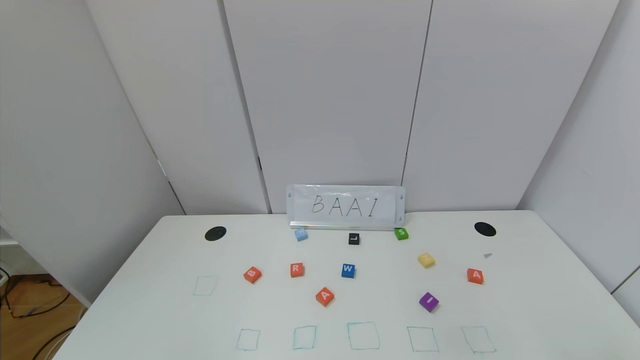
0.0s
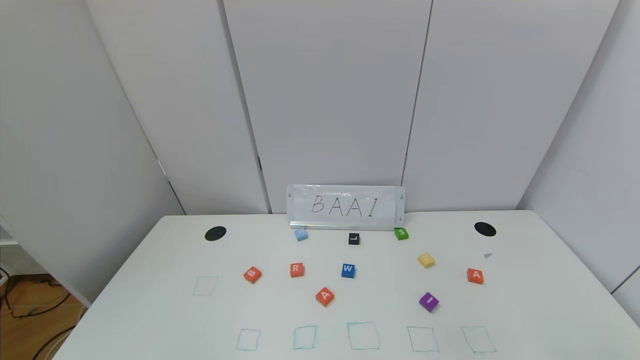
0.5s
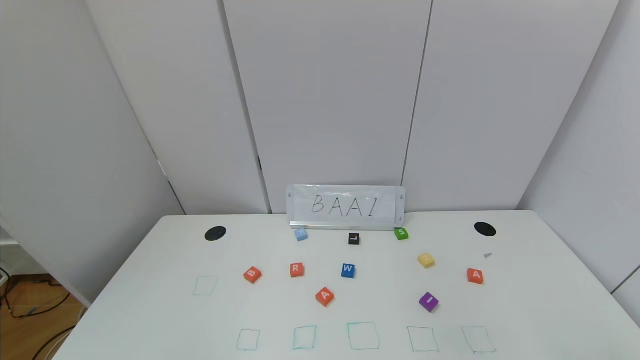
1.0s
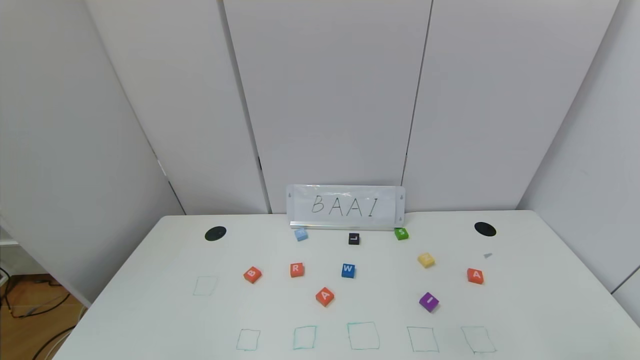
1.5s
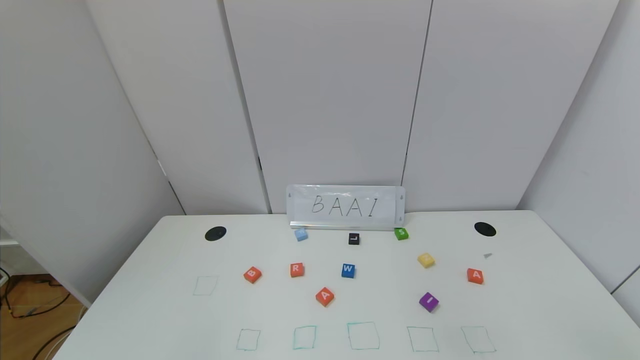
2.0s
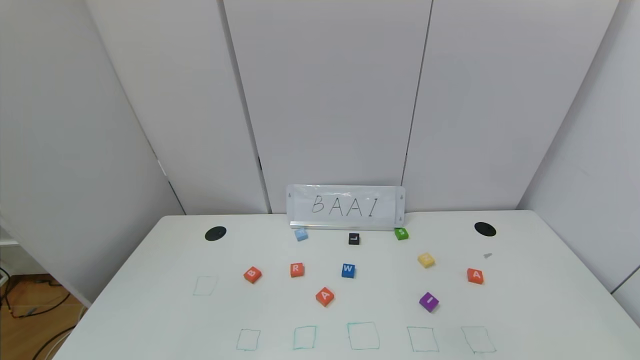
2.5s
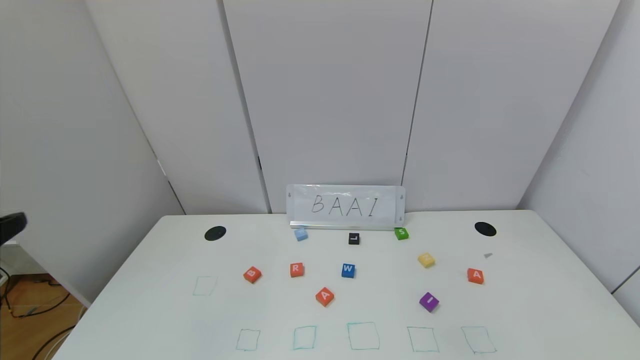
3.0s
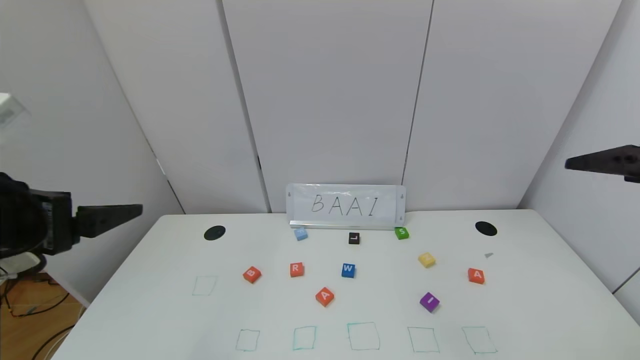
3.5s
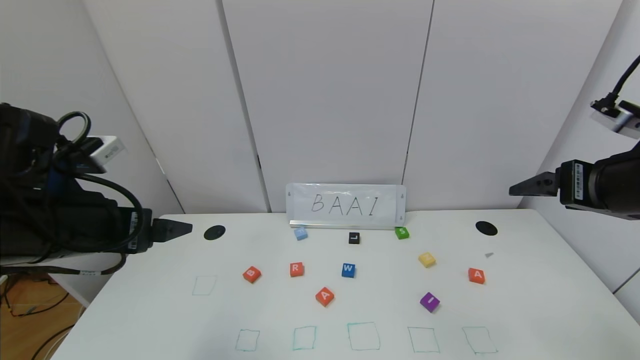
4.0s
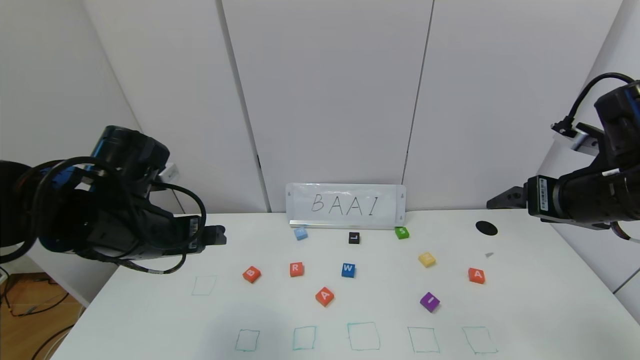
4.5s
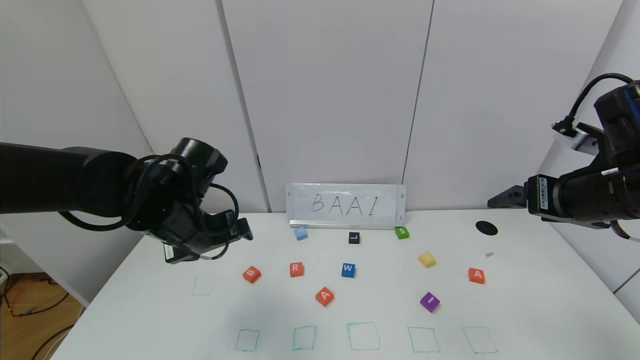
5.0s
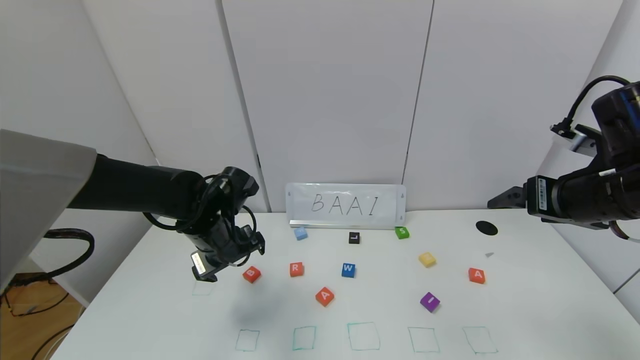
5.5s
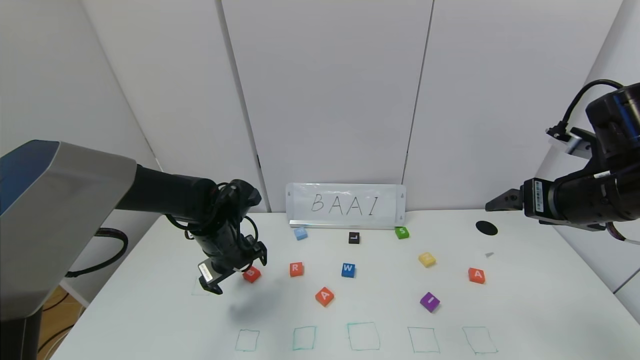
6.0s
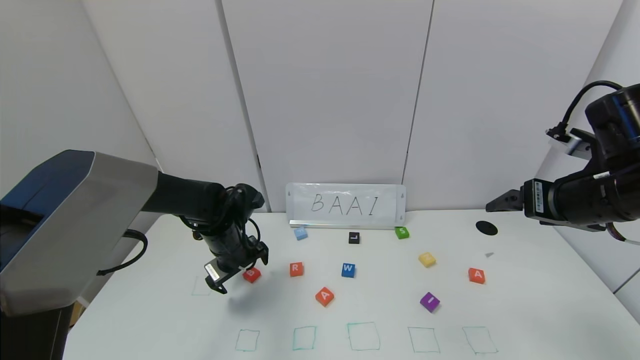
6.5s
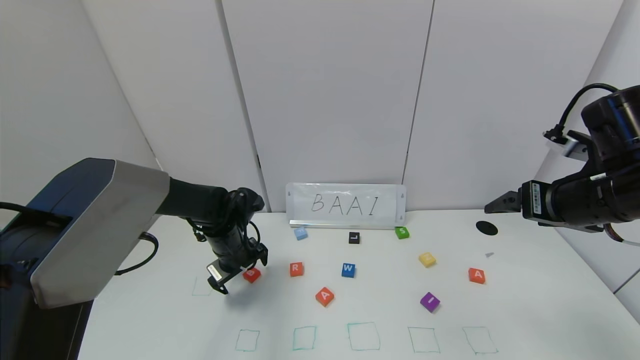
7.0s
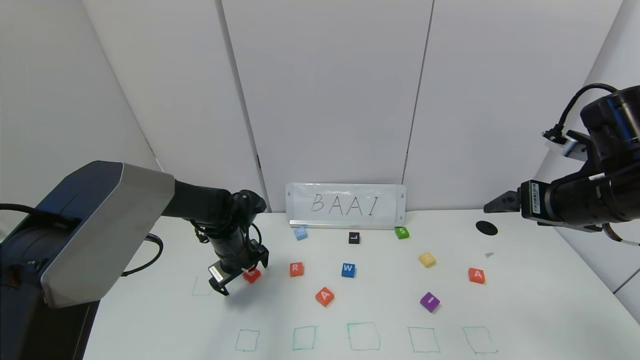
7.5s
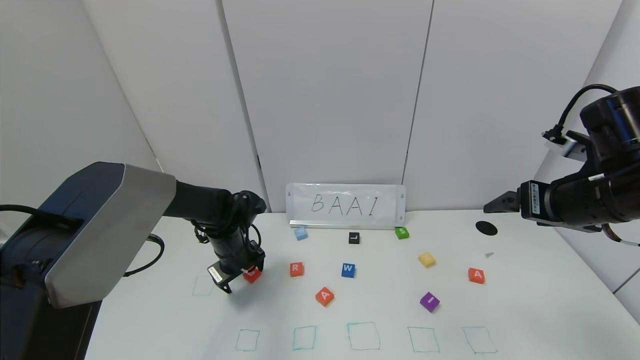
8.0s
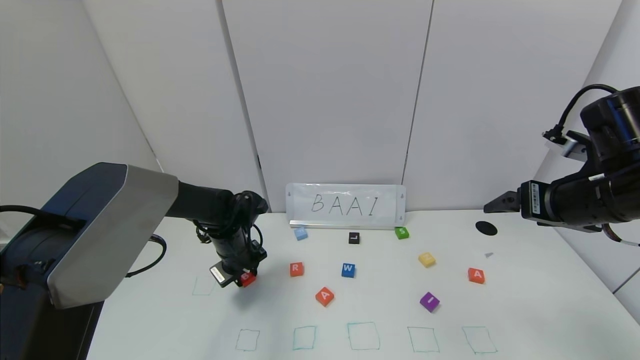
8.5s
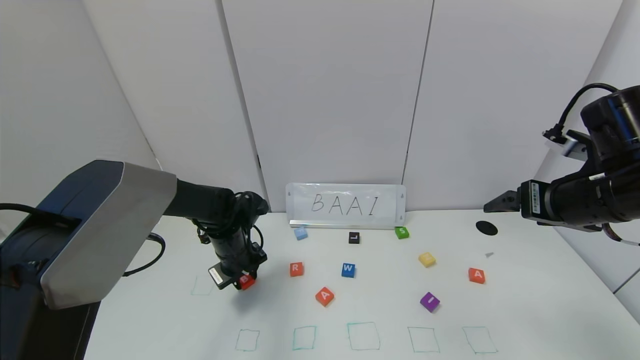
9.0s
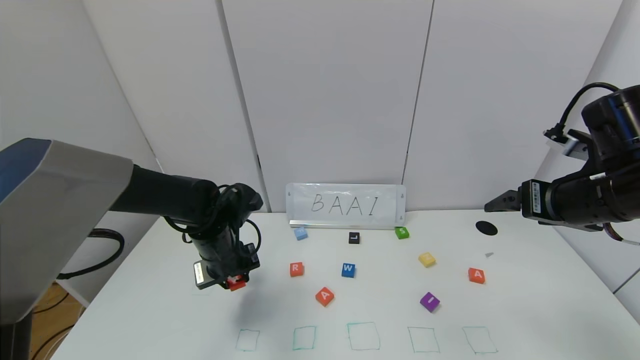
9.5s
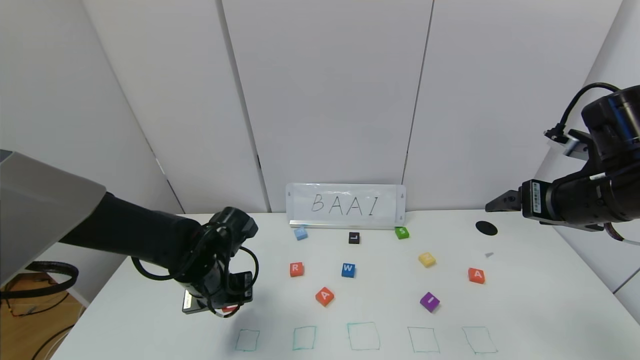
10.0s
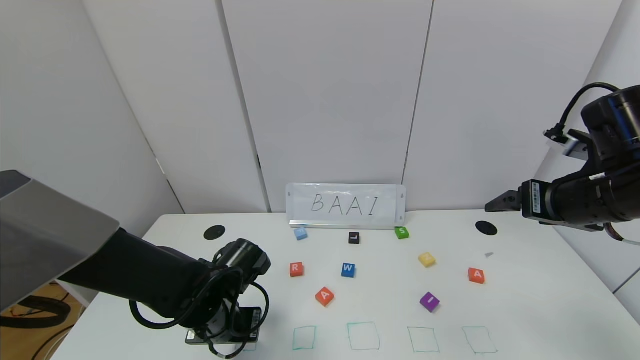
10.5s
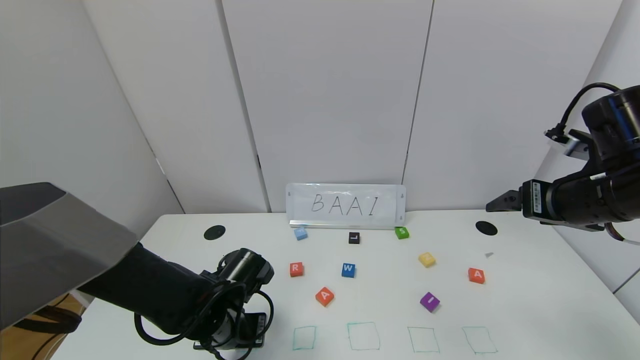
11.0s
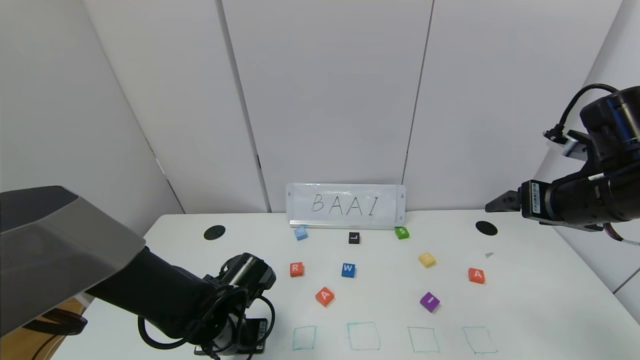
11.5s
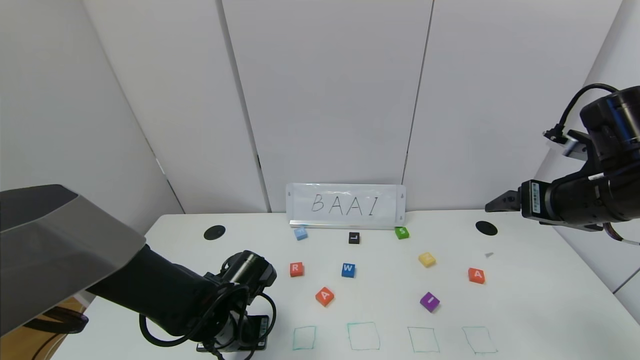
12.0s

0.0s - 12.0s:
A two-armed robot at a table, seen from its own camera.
Task of the whole recording: use the gripper to find blocks with the letters b, a, a, and i on the table and arrange them into BAAI, then find r and N and turn the arranged baai into brian.
2.0s - 4.0s: The left gripper travels forward by about 25 cm; the right gripper moves forward and upward, about 30 cm.
4.0s - 6.0s: The left gripper is displaced forward, downward and to the right by roughly 20 cm.
6.0s - 8.0s: The left gripper changes place by approximately 5 cm.
8.0s - 10.0s: The left gripper moves backward, about 10 cm, and closes up.
10.0s - 12.0s: The left gripper ends up some 5 cm from where it was.

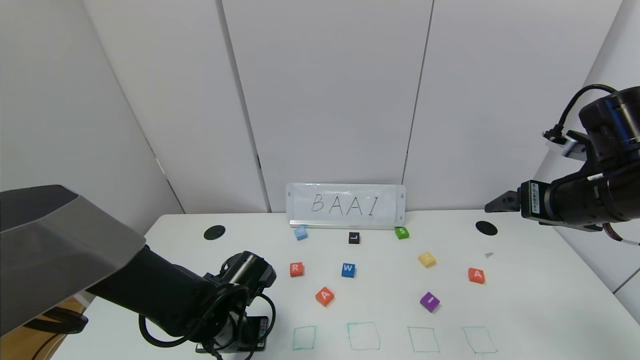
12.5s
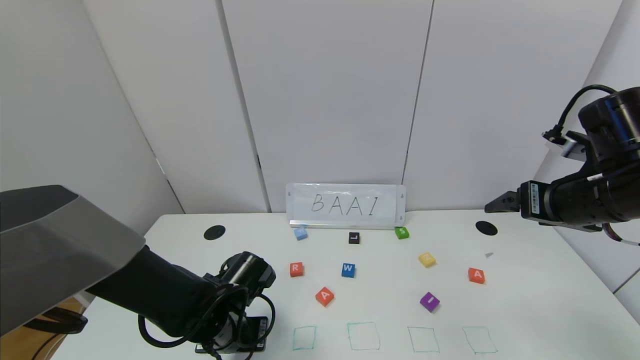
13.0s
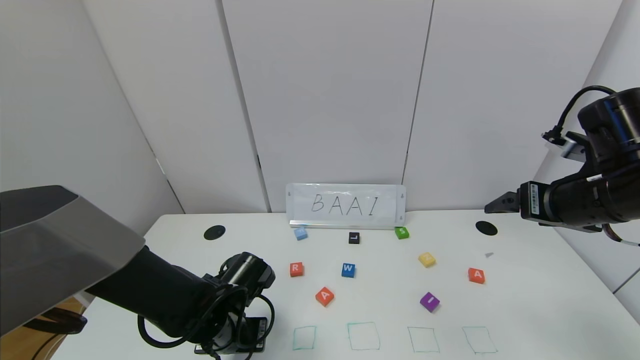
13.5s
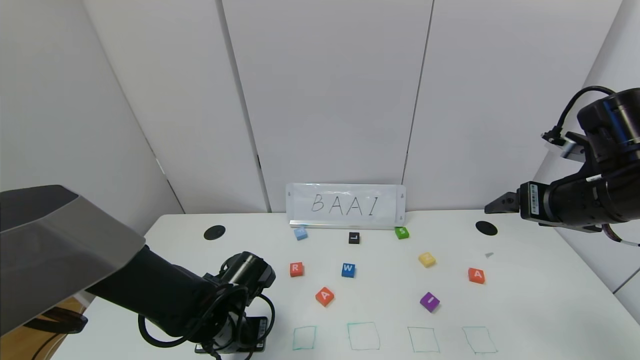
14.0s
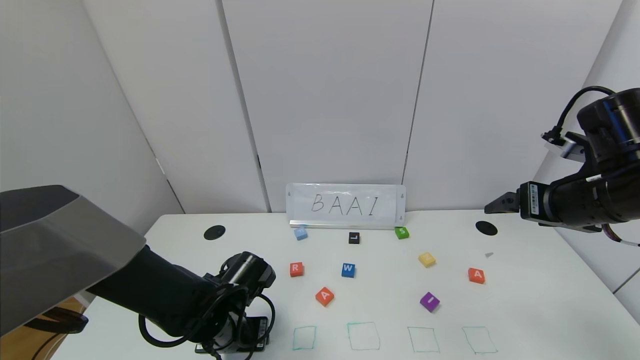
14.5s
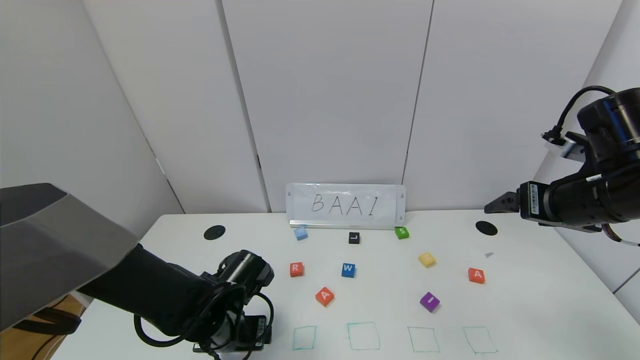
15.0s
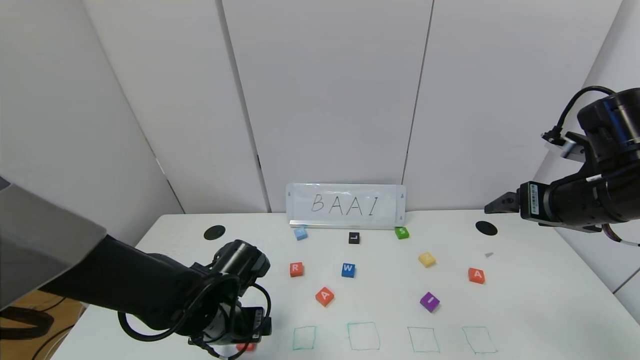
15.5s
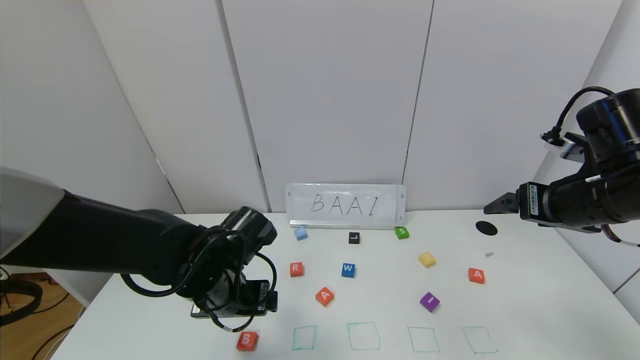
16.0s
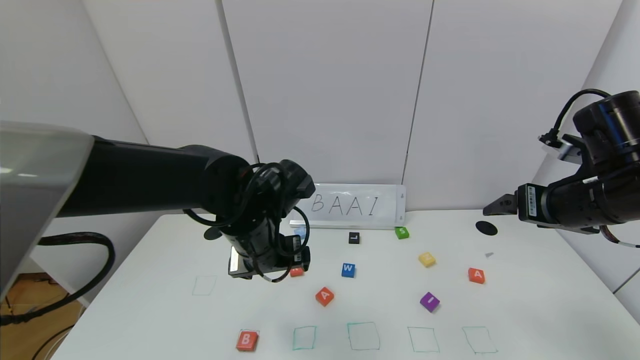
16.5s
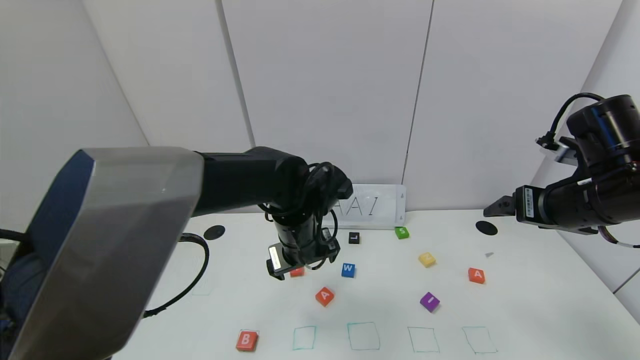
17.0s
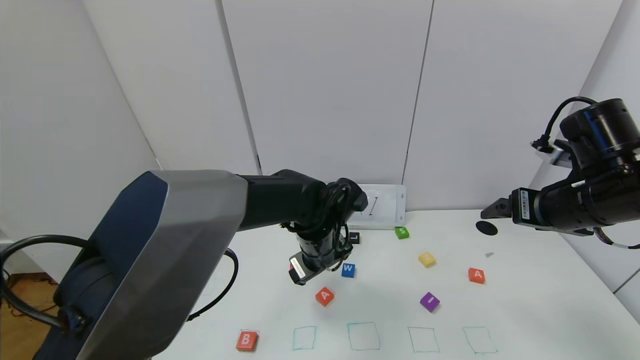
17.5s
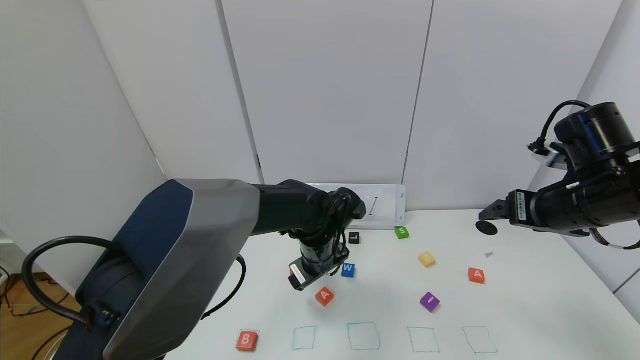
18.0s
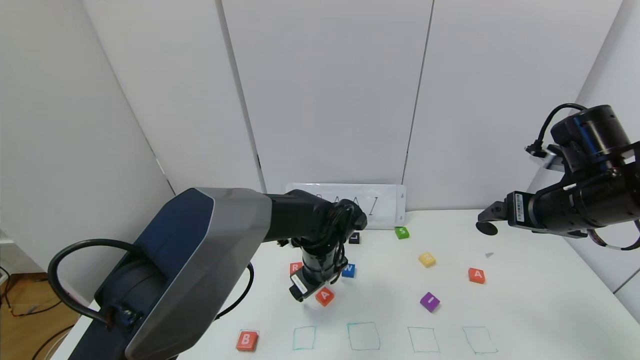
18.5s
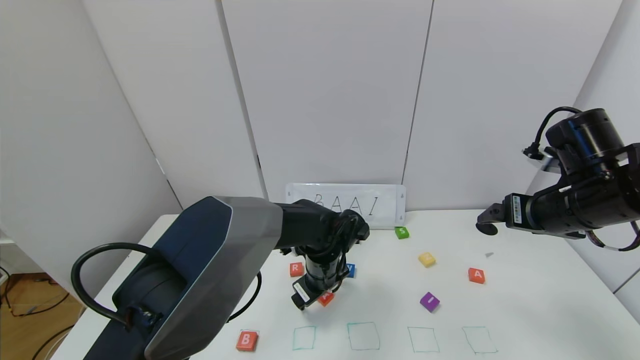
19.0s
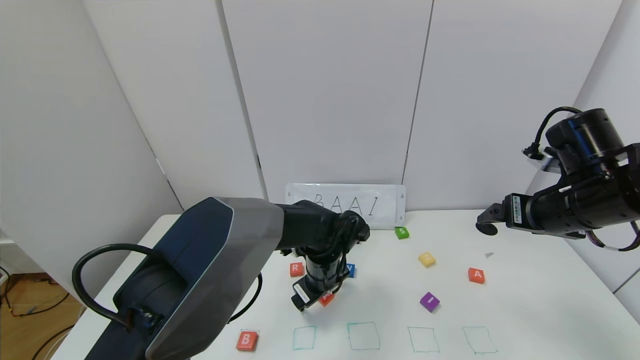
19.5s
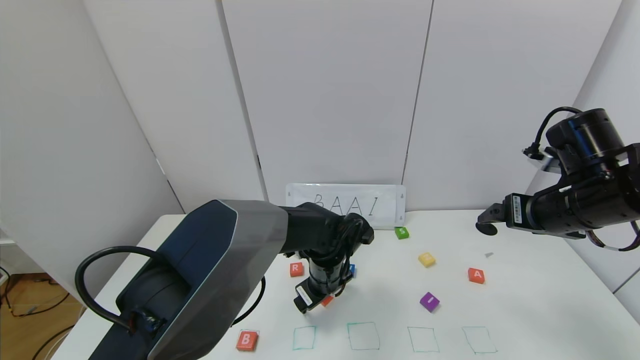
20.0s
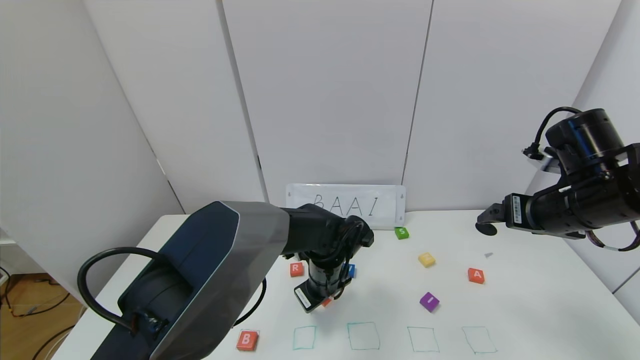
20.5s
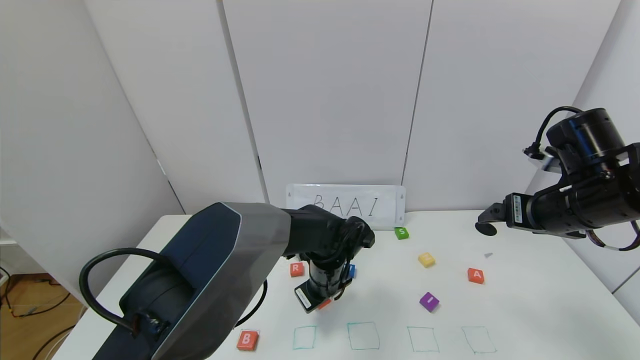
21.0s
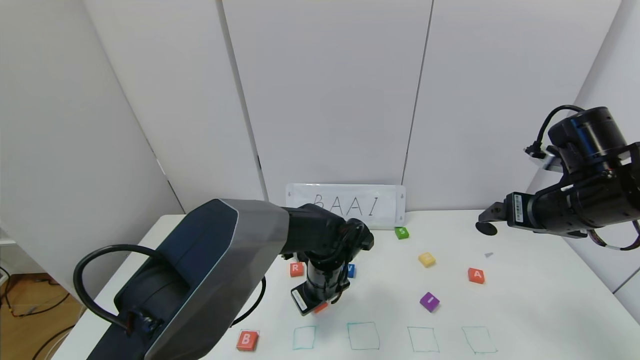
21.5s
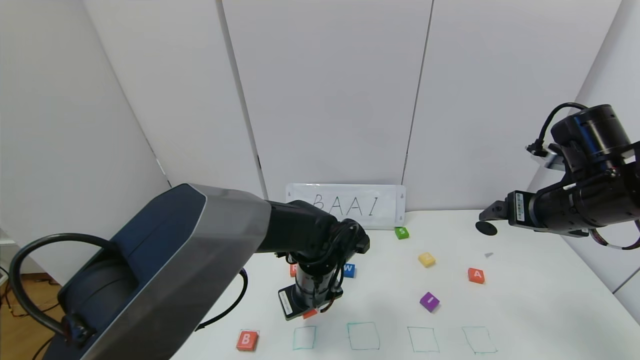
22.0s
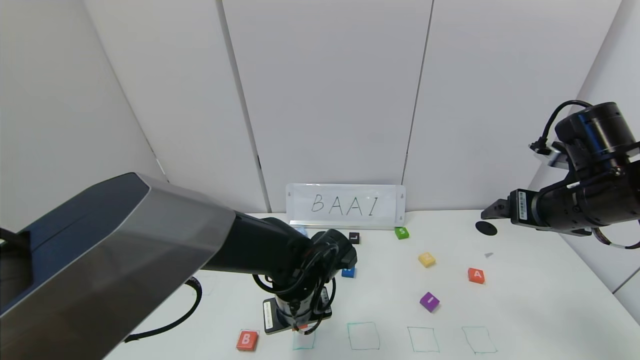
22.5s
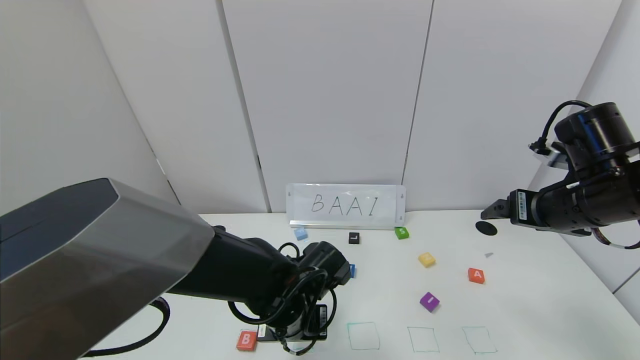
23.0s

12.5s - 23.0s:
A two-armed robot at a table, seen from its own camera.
Task of the whole recording: use the gripper to find blocks with the letters b, a, a, and i on the table and arrange them into BAAI, then find r and N and turn the arranged baai into brian.
14.5s - 16.5s: The left gripper heads upward and to the right, covering roughly 15 cm.
16.5s - 19.0s: The left gripper moves downward, to the right and forward, approximately 15 cm.
19.0s - 21.0s: The left gripper closes its fingers.
21.0s - 23.0s: The left gripper goes roughly 10 cm backward.
